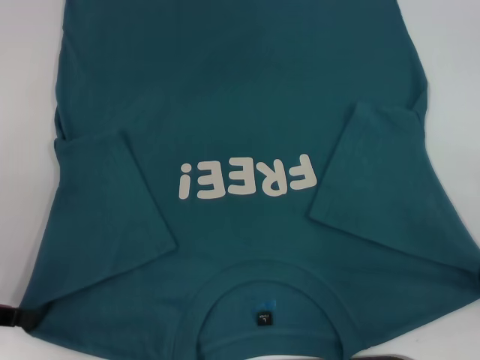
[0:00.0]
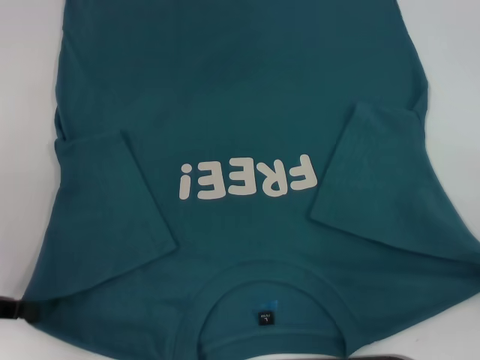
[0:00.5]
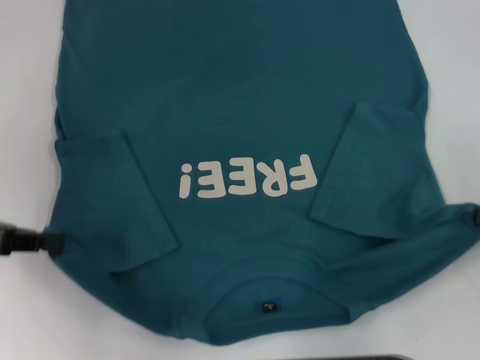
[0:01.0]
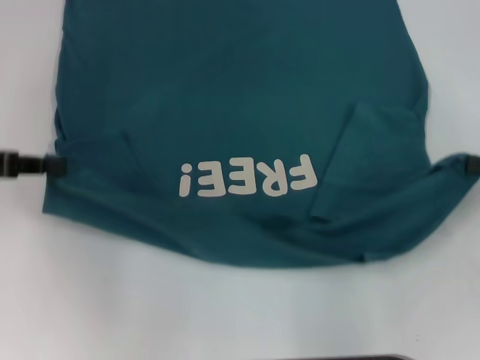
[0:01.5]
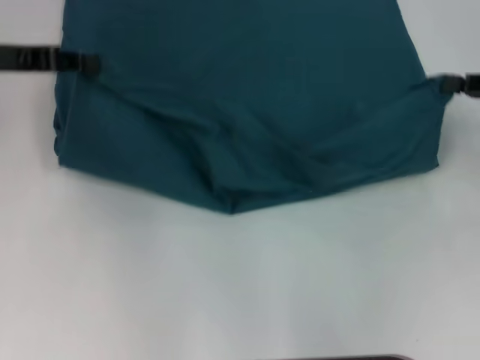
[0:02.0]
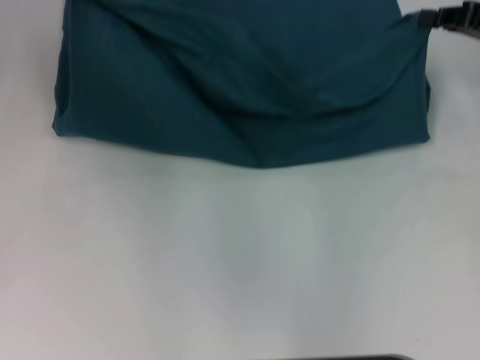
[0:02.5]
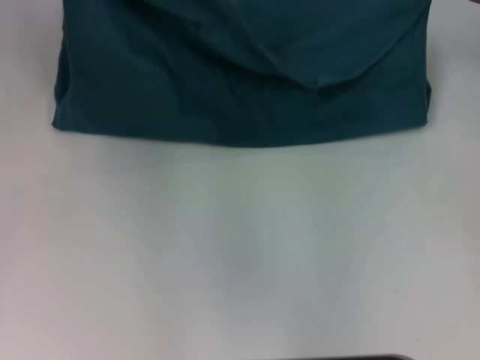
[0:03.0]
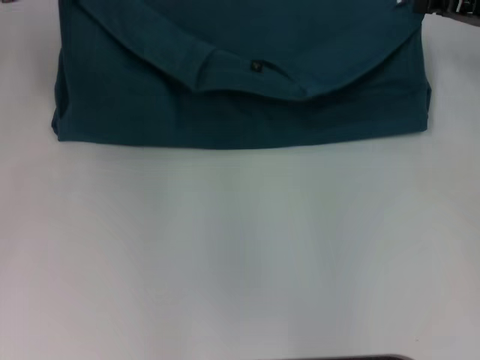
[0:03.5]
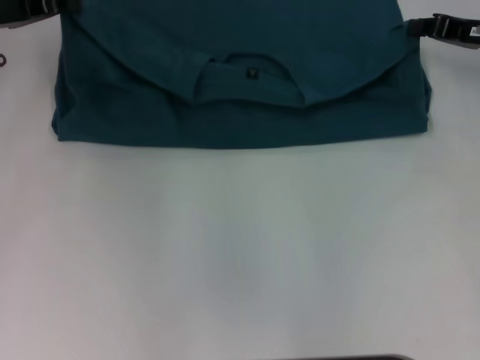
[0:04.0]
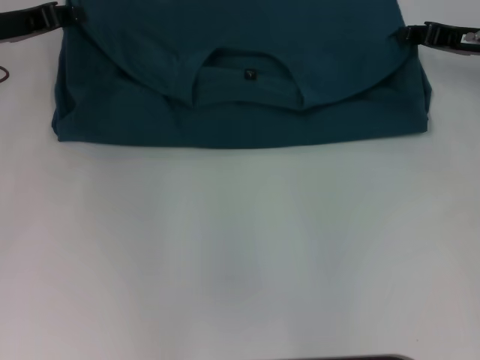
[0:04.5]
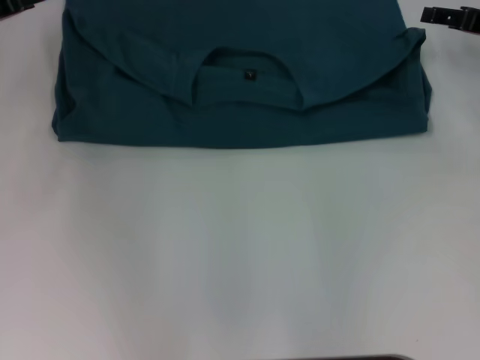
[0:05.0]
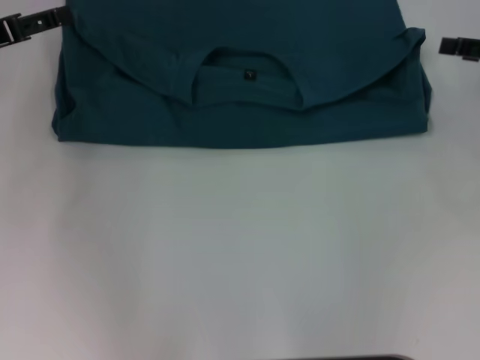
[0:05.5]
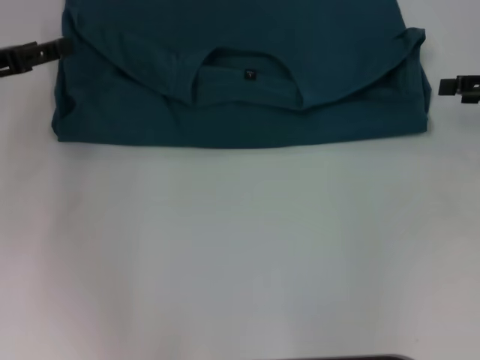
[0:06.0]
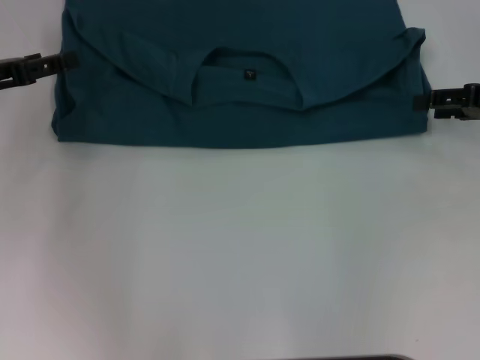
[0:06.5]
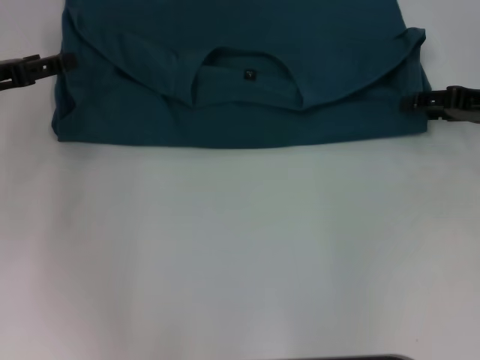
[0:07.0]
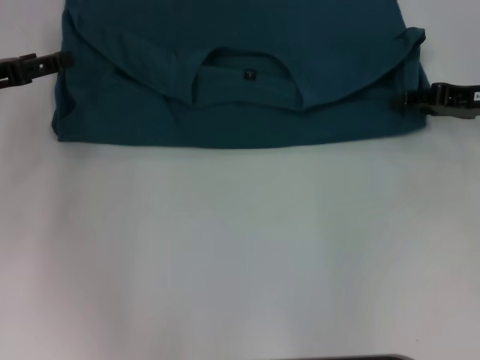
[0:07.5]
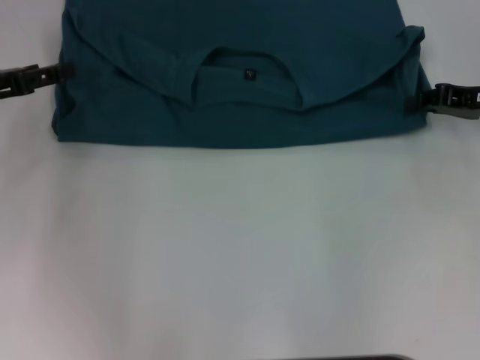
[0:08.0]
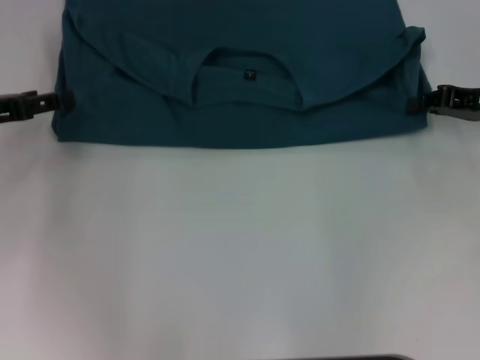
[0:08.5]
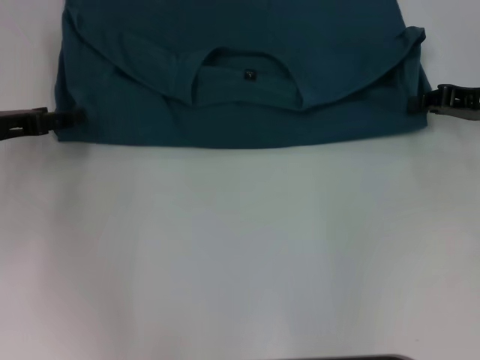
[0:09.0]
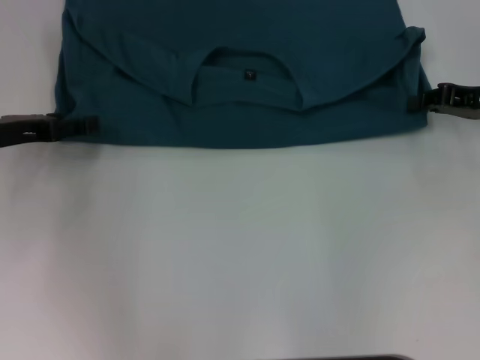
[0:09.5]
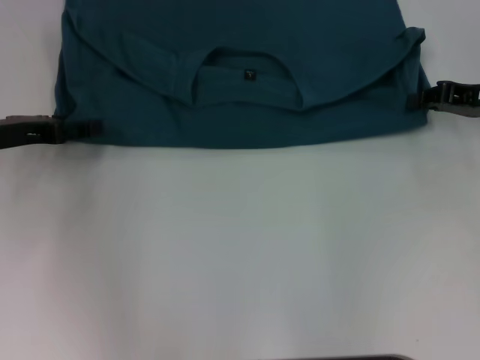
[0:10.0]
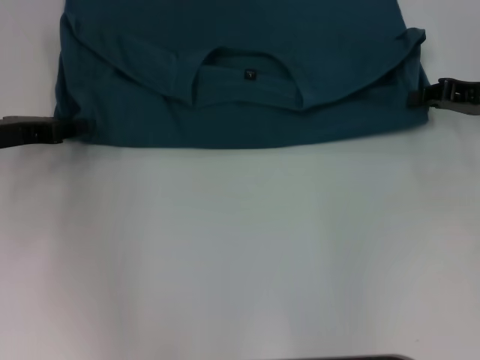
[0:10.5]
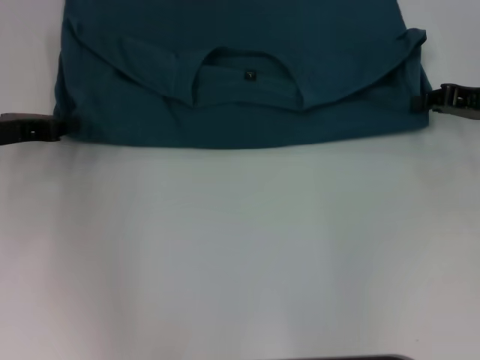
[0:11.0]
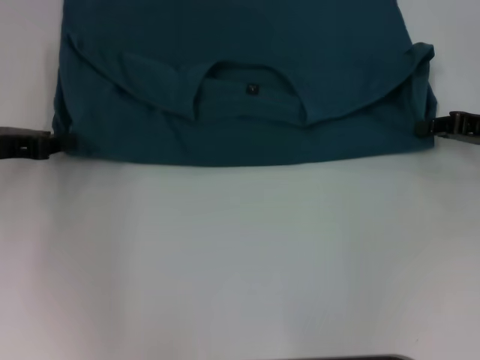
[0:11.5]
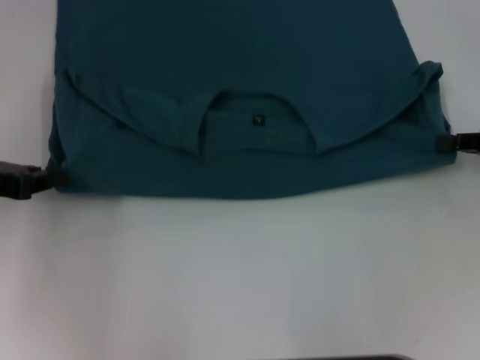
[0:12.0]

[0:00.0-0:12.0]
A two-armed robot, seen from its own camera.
Step, 0:00.0 to 0:05.0: Fold the clothes to the left.
Step, 0:00.0 to 0:05.0: Fold the clothes to the right.
0:00.0 to 0:02.0: The right gripper heads forward and upward, covering roughly 15 cm. Meanwhile the left gripper heads forward, upward and to the right, covering about 20 cm.
0:02.0 to 0:04.0: The right gripper is displaced forward by roughly 10 cm.
0:04.0 to 0:06.0: The left gripper moves backward, about 5 cm, and opens up; the right gripper is displaced backward and to the right by roughly 10 cm, and opens.
0:06.0 to 0:08.0: The right gripper changes place by about 5 cm, and closes.
0:08.0 to 0:10.0: The grippers make only small movements.
0:10.0 to 0:12.0: The right gripper heads backward, covering approximately 5 cm; the left gripper changes place by roughly 5 cm, and closes.

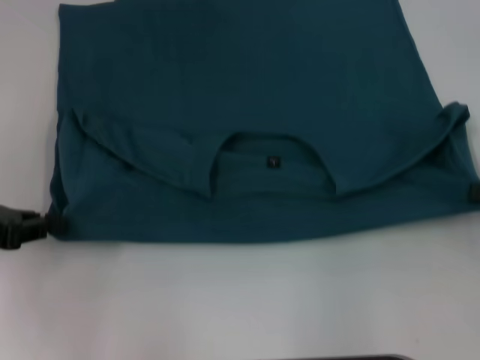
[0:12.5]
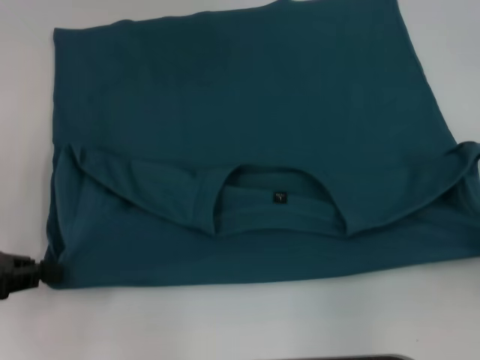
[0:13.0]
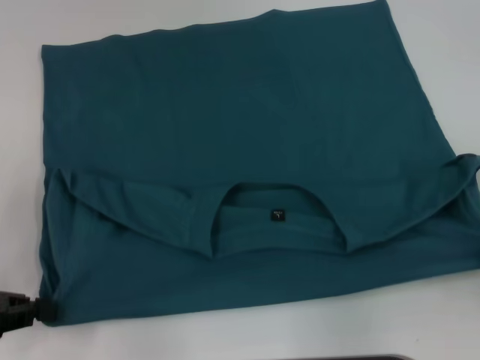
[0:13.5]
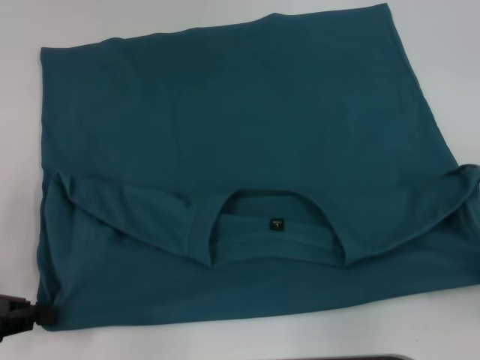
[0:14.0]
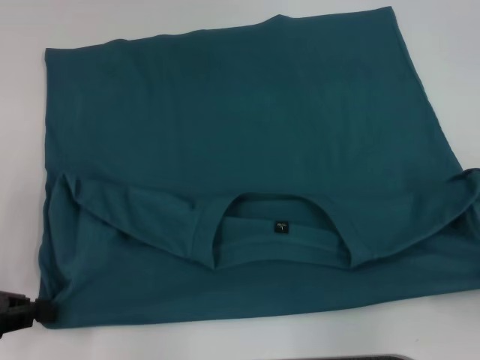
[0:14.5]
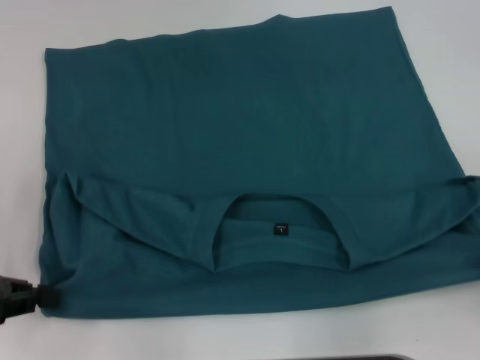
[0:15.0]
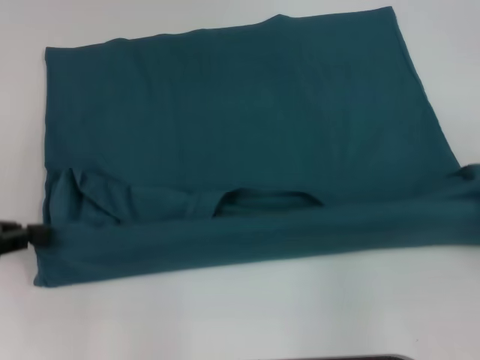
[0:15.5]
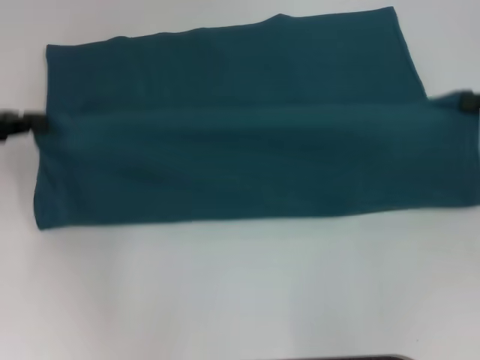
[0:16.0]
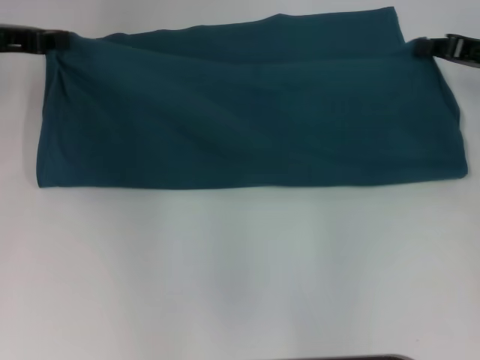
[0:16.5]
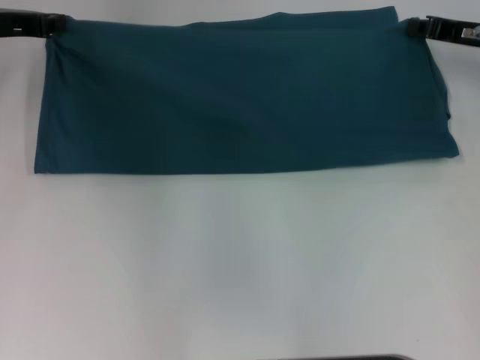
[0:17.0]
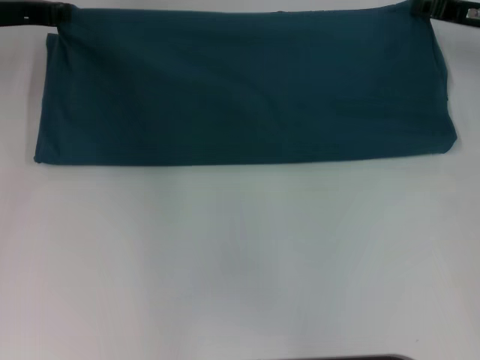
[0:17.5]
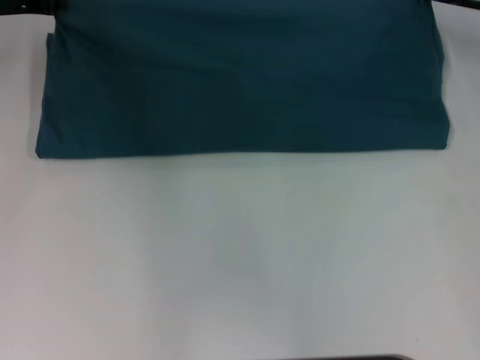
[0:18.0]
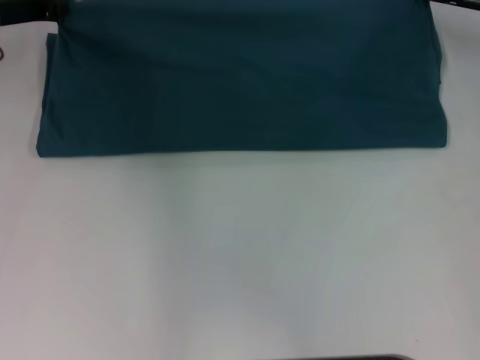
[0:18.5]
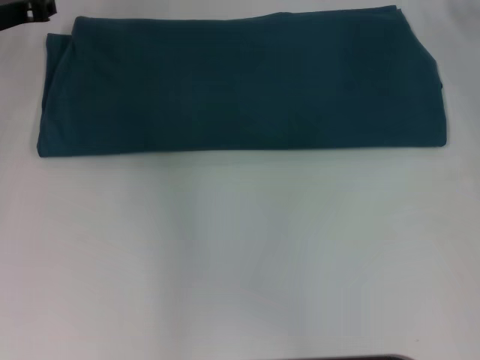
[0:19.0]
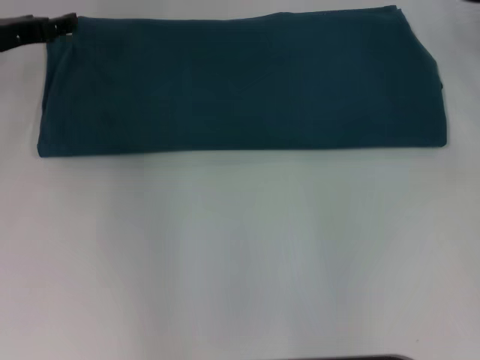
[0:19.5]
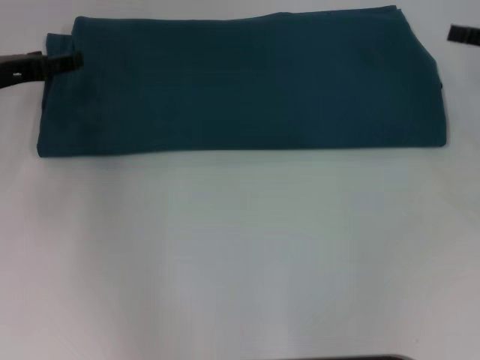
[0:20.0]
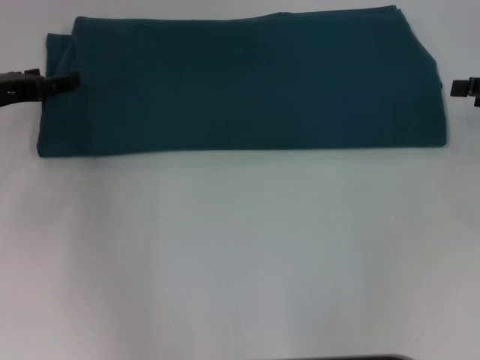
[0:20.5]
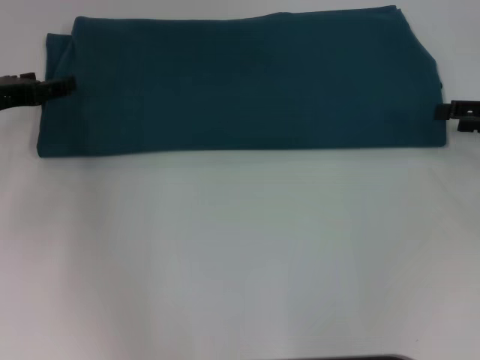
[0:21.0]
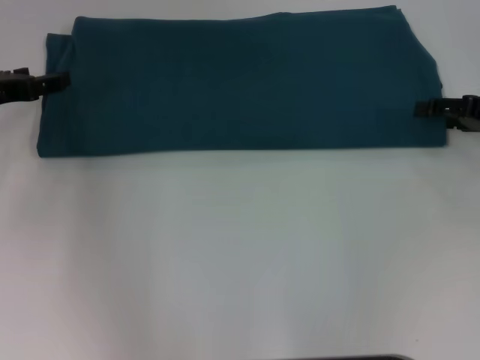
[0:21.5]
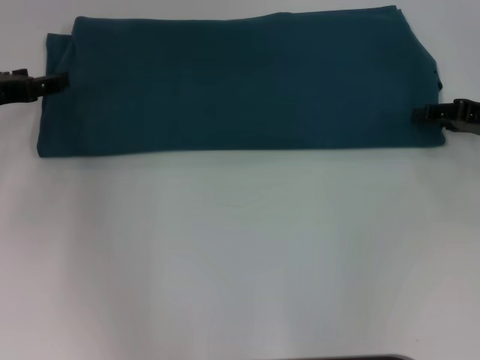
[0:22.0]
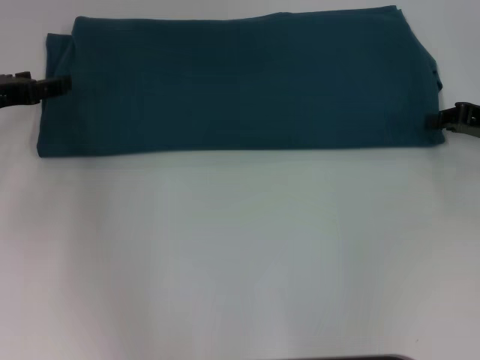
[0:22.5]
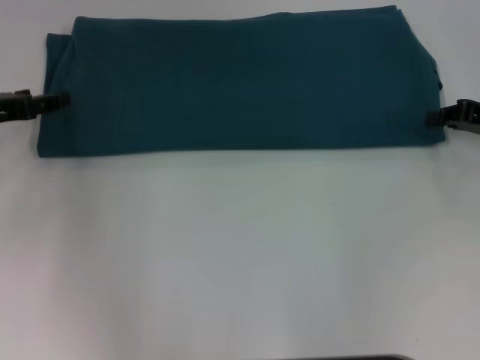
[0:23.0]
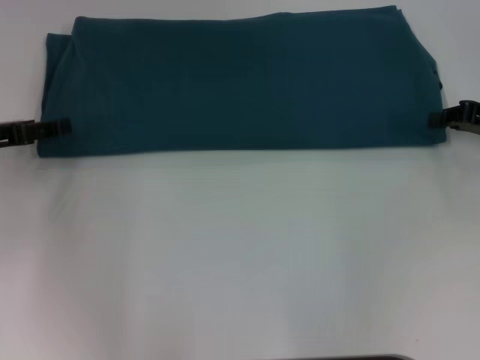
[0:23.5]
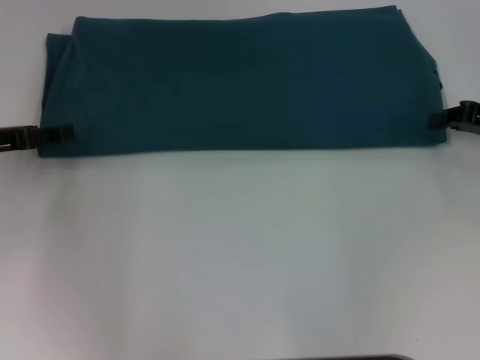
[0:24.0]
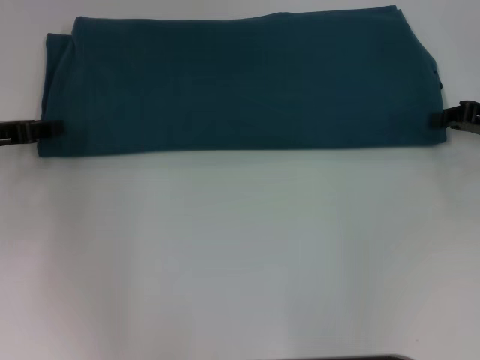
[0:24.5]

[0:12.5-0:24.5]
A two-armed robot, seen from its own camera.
Step, 0:14.5 to 0:18.5: Fold the clothes to the right.
0:12.5 to 0:14.5: The right gripper moves backward, roughly 10 cm, while the left gripper shifts some 5 cm backward.
0:14.5 to 0:16.5: The grippers both shift forward by approximately 20 cm.
0:16.5 to 0:18.5: The right gripper heads forward, covering roughly 5 cm. Meanwhile the left gripper moves about 5 cm.
0:18.5 to 0:20.5: The left gripper travels backward by some 10 cm, and opens up; the right gripper moves backward and to the right, roughly 15 cm, and opens its fingers.
0:20.5 to 0:22.5: The right gripper moves roughly 5 cm, and closes its fingers.
0:22.5 to 0:24.5: The grippers move only a little.

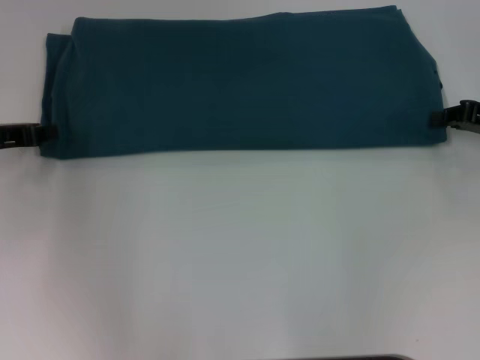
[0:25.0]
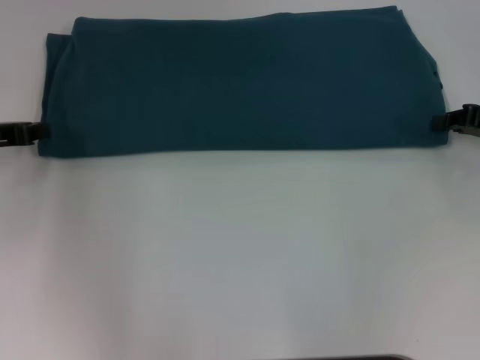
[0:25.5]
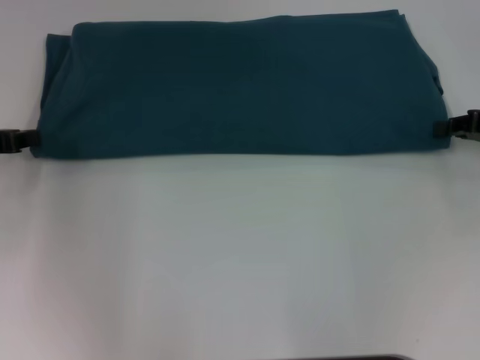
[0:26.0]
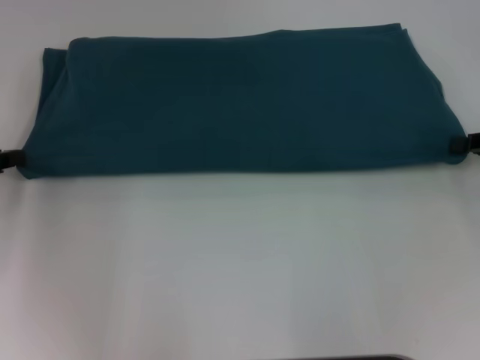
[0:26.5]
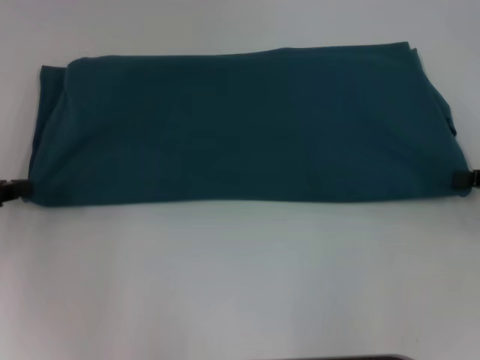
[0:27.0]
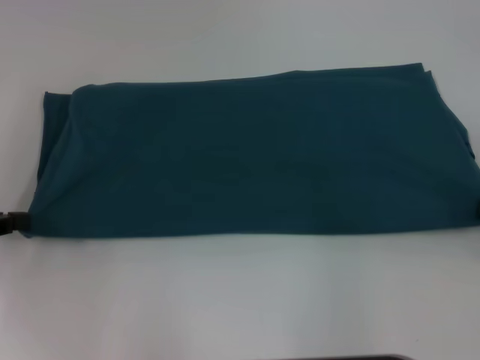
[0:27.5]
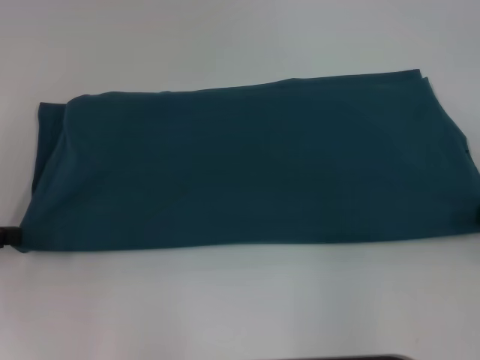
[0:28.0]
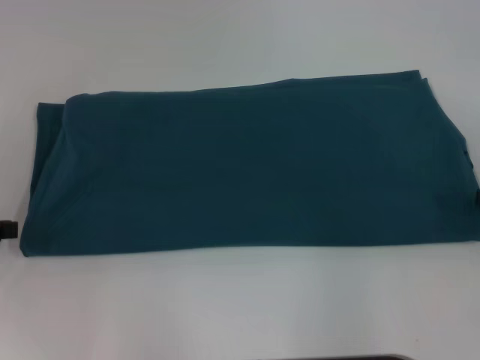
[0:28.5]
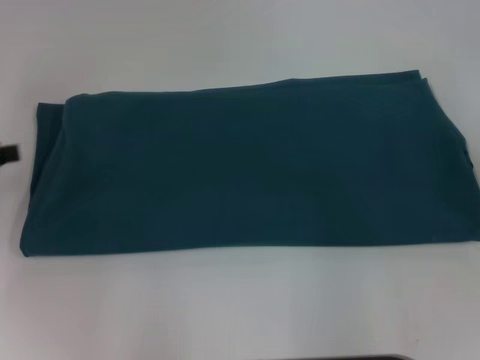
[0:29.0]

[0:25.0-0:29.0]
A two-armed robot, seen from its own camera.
0:25.0 to 0:27.0: Both grippers move backward, about 5 cm.
0:27.0 to 0:29.0: The right gripper opens up.
